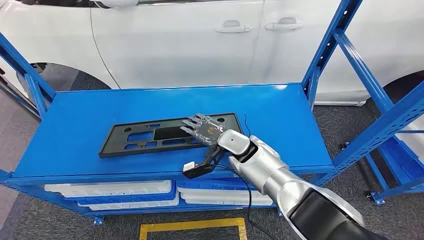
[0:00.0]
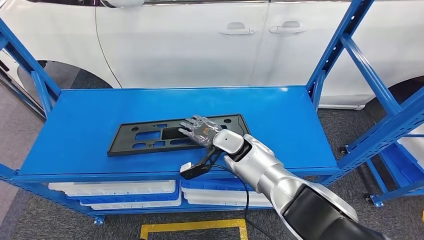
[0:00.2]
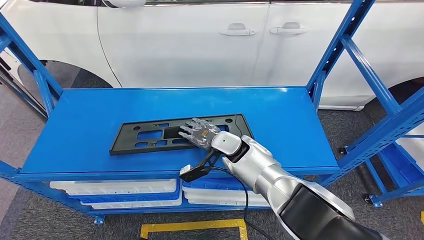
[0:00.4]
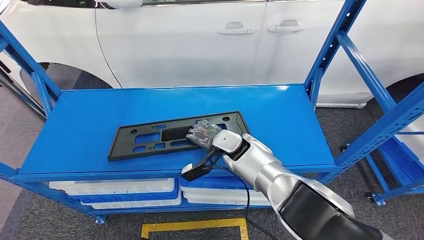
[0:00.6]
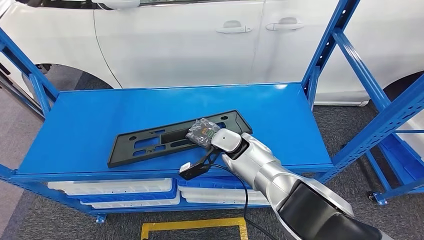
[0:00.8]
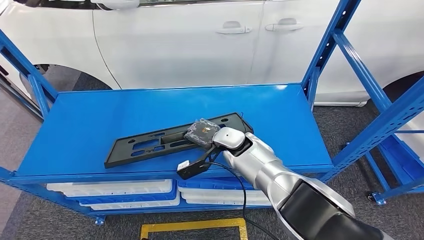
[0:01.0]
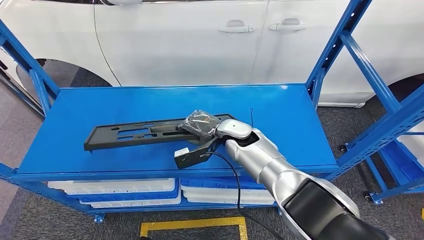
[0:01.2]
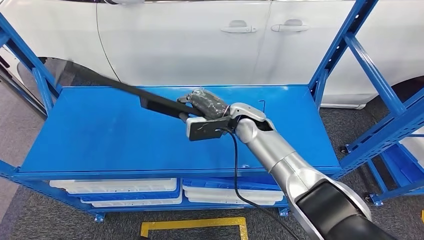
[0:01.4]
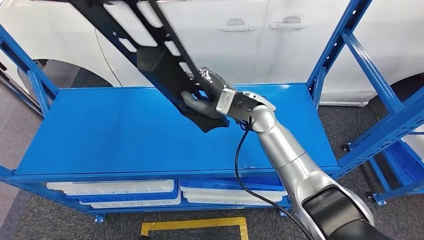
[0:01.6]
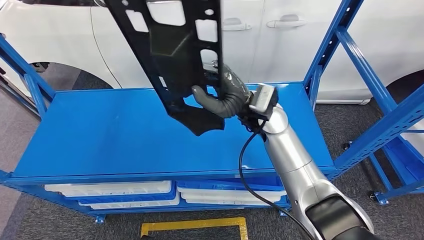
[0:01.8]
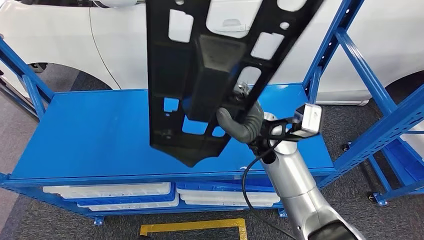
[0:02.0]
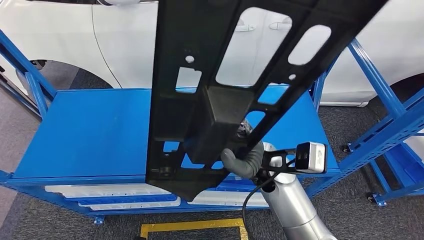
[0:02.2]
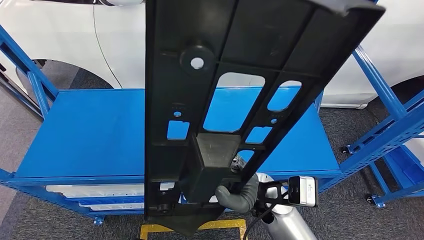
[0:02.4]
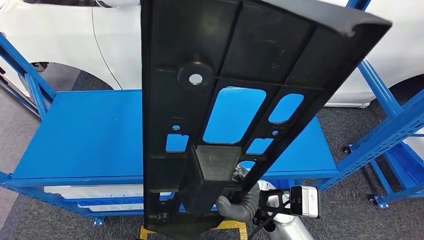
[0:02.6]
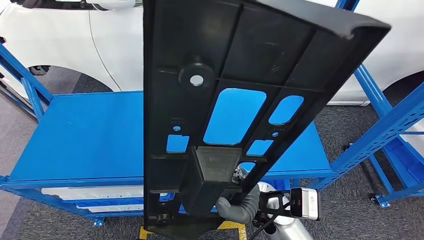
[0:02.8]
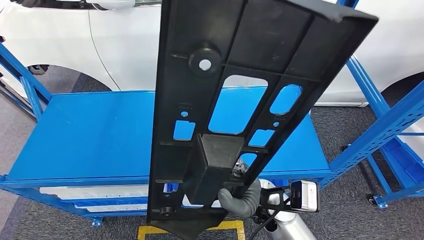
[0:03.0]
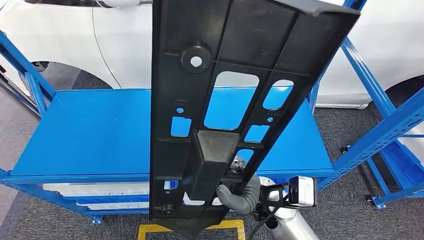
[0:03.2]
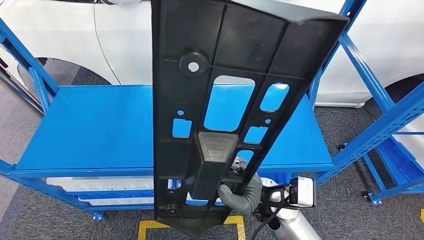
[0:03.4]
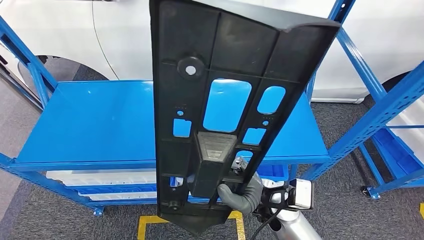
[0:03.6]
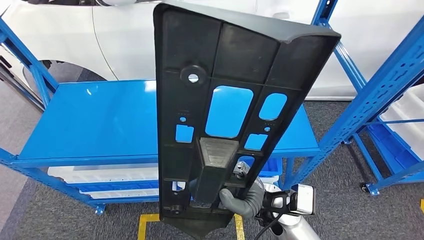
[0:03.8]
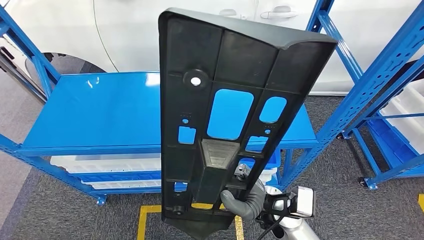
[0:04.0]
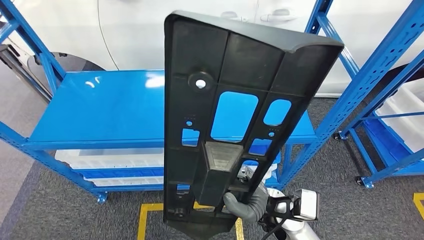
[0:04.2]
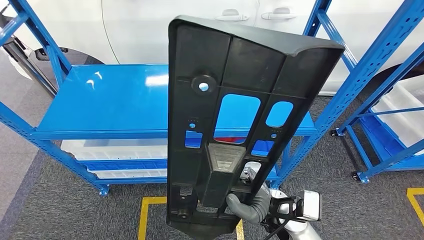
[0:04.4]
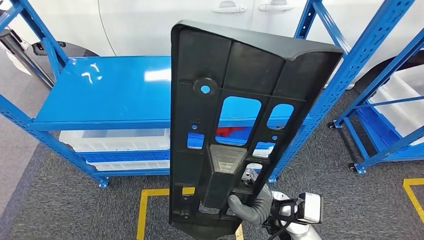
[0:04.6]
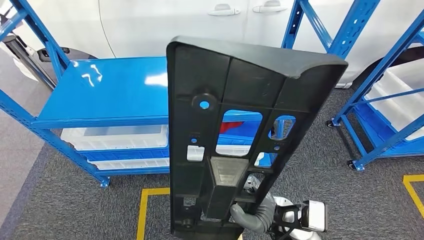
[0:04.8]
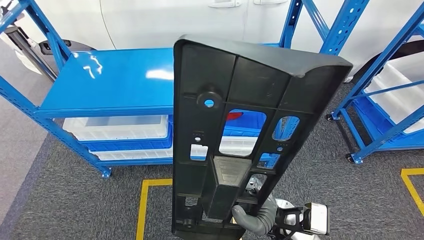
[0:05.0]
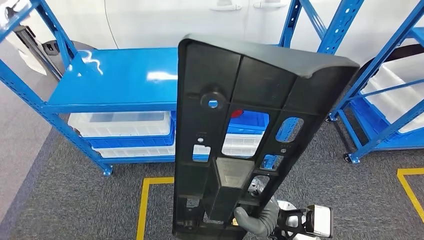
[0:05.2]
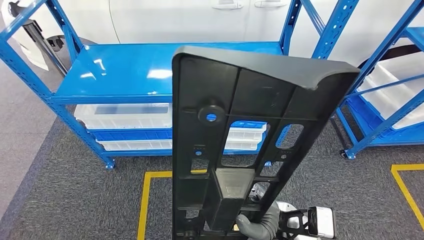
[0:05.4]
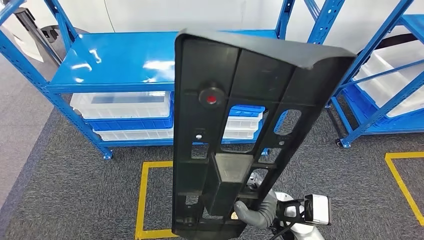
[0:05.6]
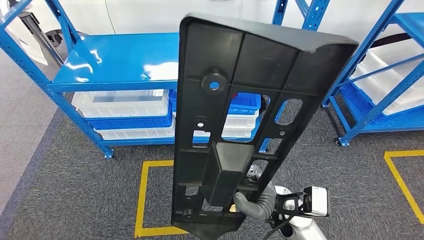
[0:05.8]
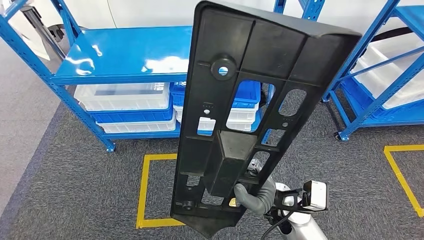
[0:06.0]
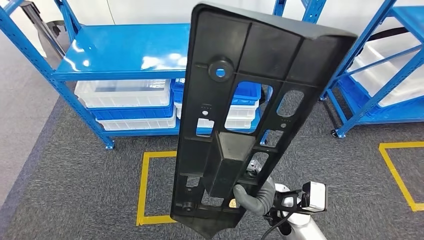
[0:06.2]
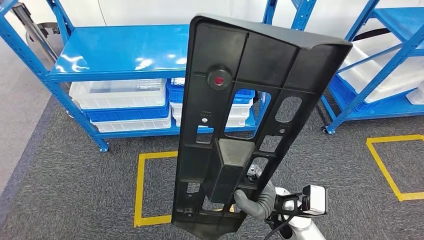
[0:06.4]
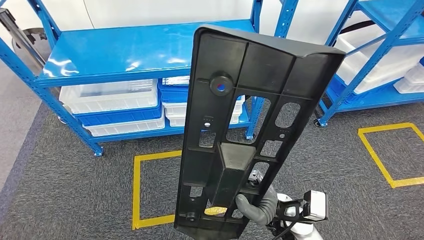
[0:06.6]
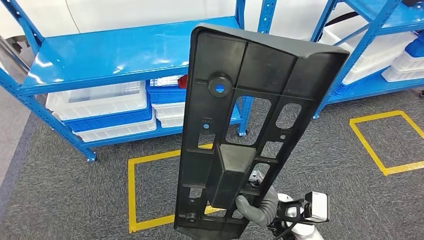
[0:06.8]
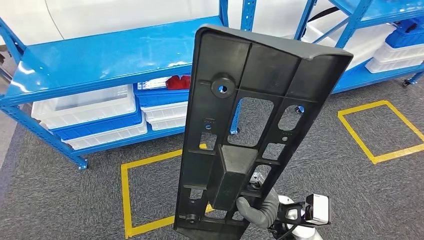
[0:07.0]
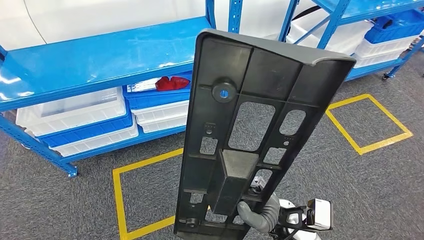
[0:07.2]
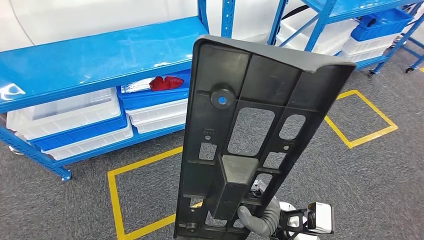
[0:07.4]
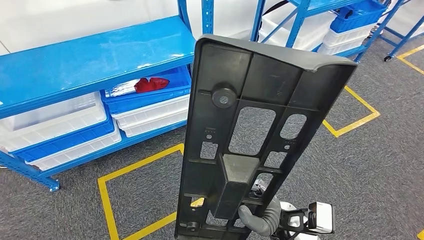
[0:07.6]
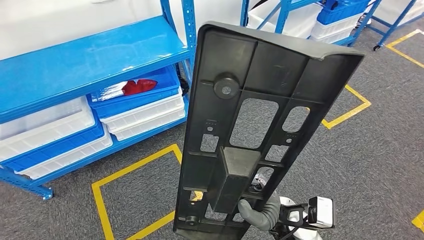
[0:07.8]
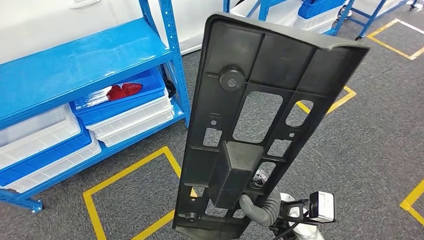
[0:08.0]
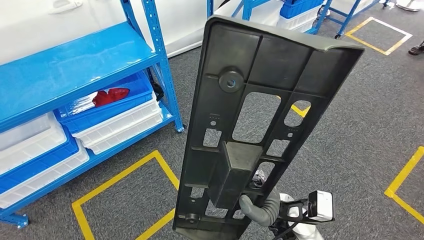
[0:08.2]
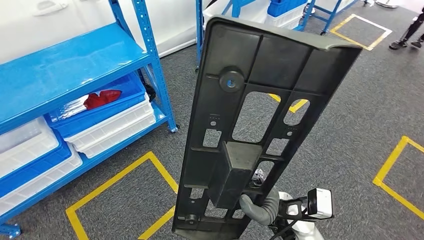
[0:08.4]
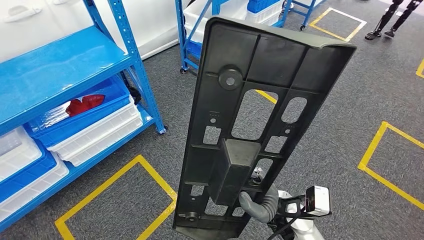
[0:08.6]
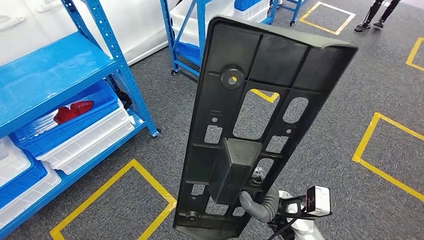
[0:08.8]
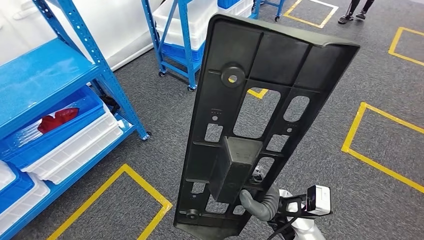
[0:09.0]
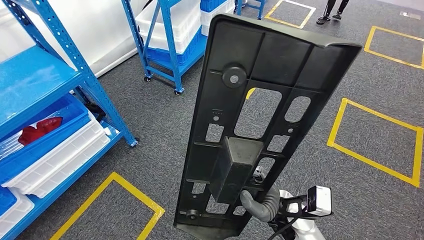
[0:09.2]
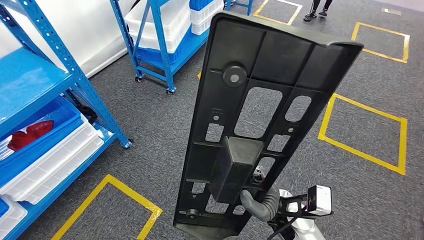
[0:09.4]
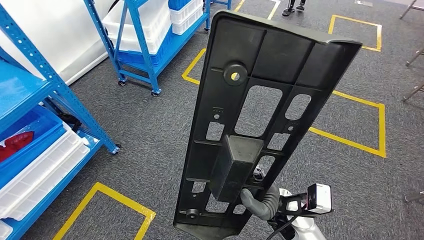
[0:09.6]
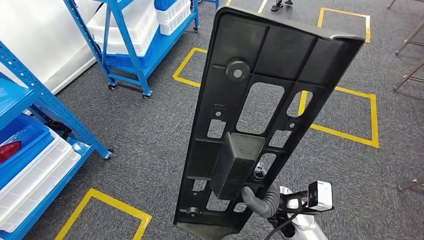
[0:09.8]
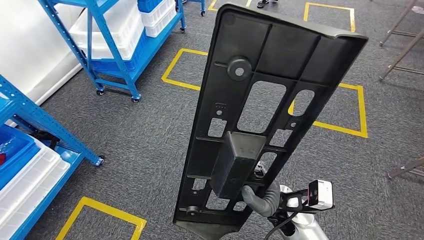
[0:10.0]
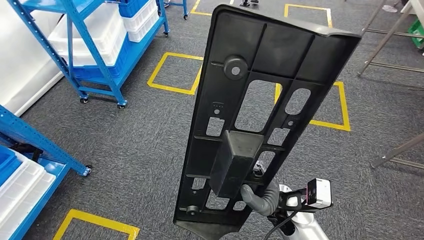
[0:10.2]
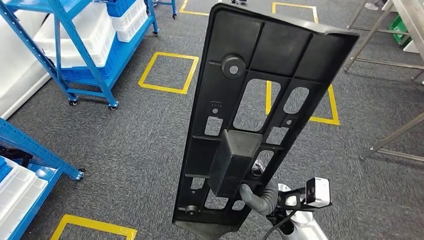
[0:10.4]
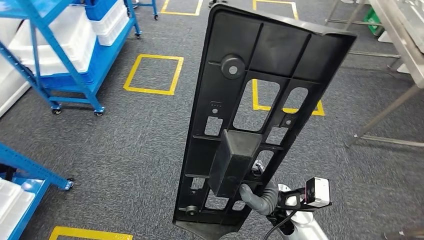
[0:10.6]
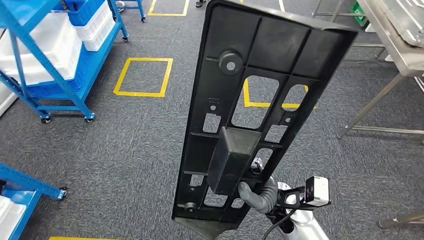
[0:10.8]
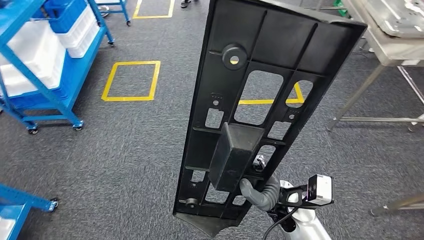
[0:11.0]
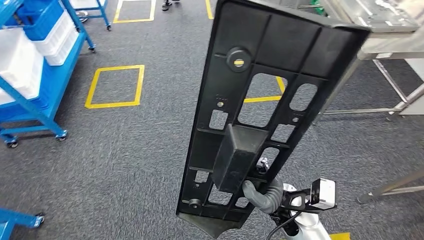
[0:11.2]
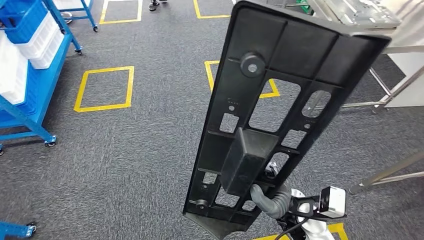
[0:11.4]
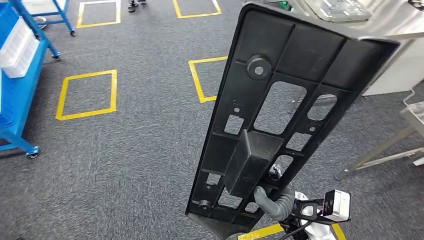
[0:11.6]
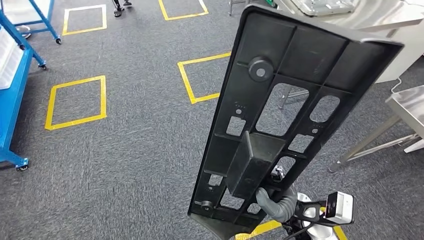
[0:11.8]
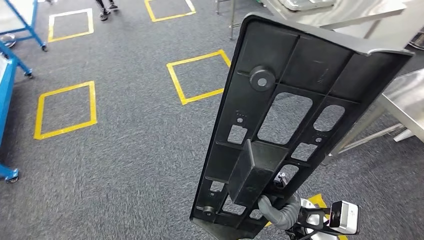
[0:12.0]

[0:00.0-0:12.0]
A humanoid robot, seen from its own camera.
Step, 0:00.0 to 0:03.4: Pick up the large material from the shelf.

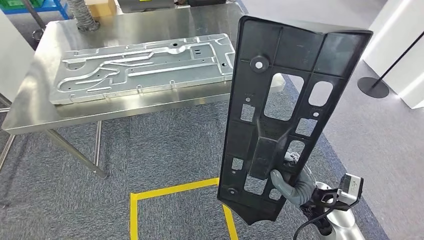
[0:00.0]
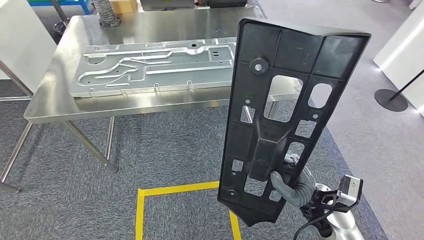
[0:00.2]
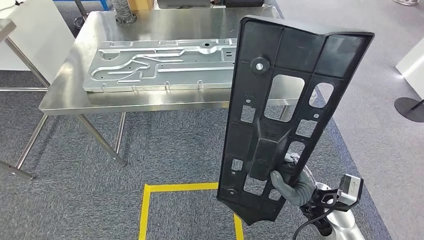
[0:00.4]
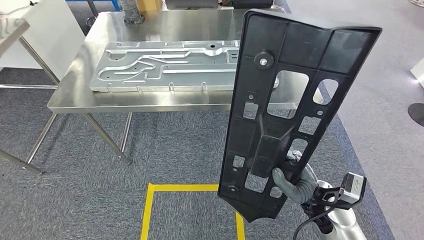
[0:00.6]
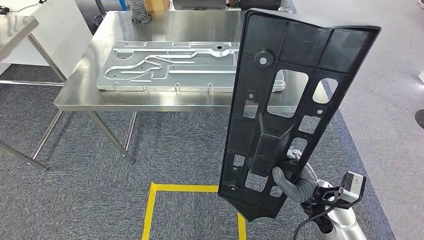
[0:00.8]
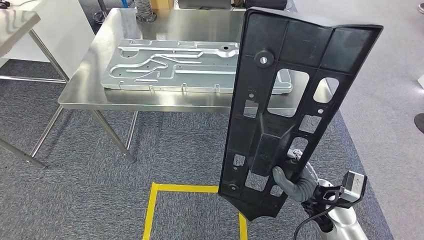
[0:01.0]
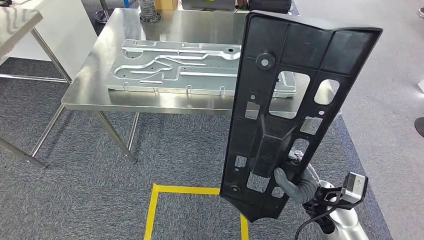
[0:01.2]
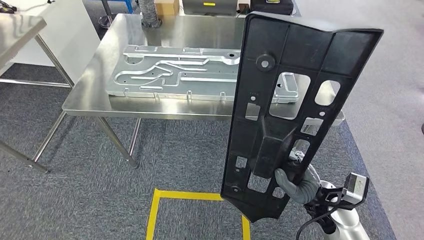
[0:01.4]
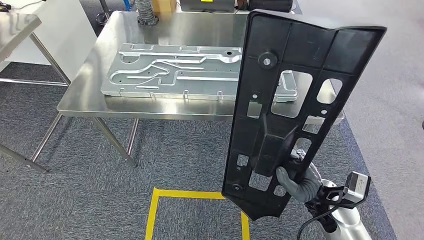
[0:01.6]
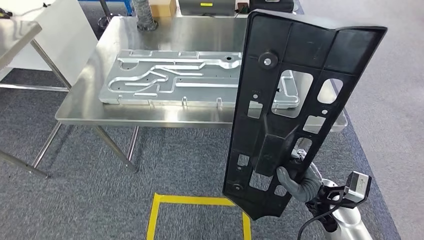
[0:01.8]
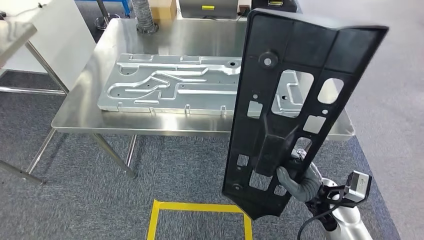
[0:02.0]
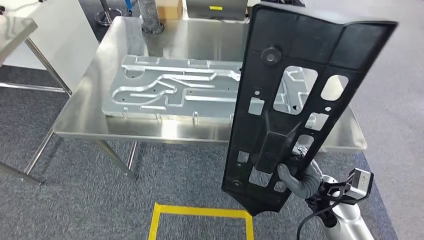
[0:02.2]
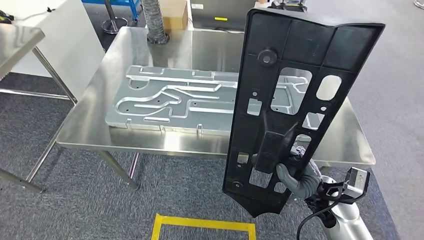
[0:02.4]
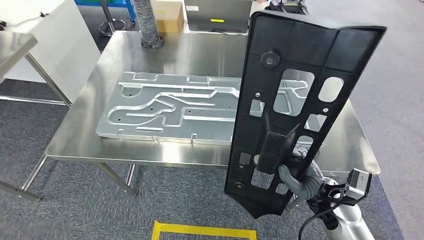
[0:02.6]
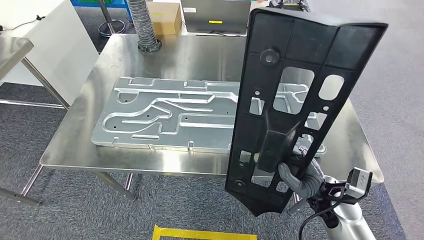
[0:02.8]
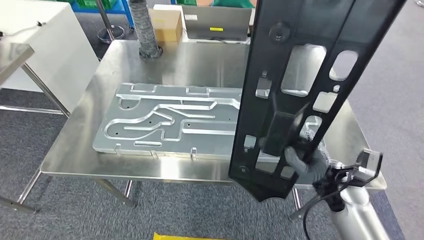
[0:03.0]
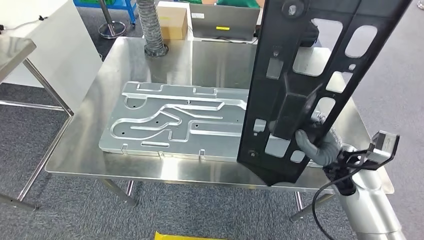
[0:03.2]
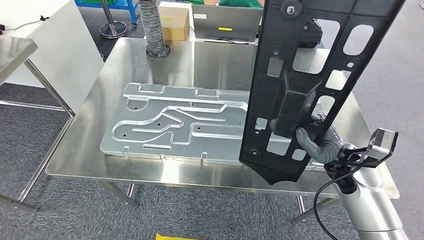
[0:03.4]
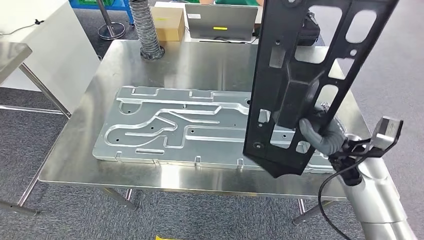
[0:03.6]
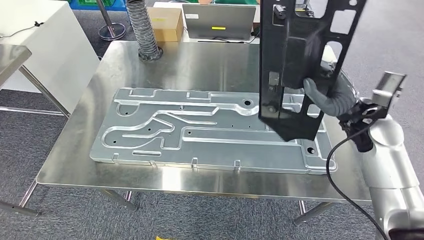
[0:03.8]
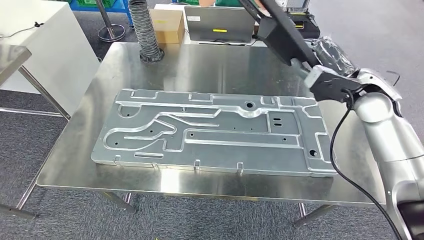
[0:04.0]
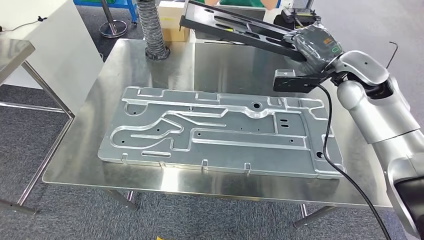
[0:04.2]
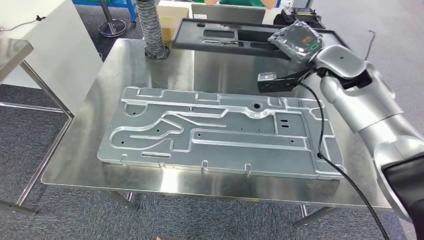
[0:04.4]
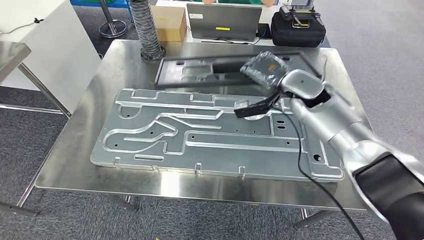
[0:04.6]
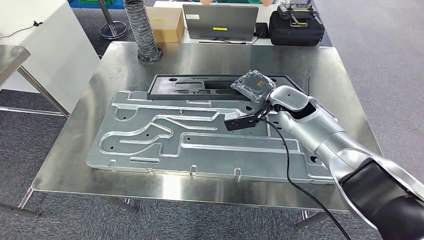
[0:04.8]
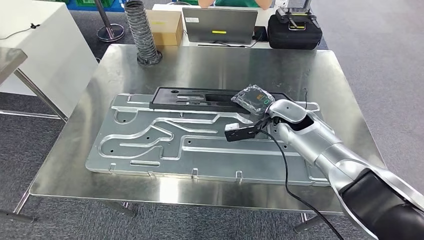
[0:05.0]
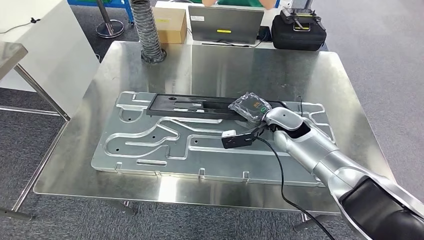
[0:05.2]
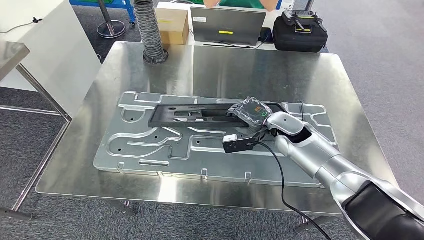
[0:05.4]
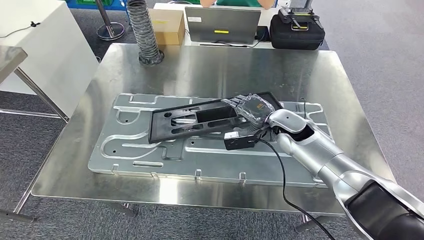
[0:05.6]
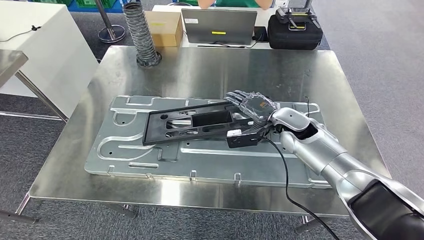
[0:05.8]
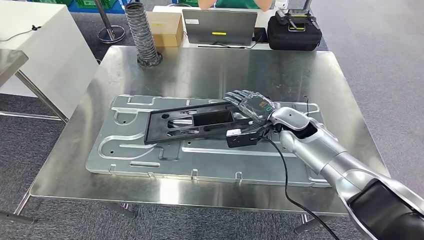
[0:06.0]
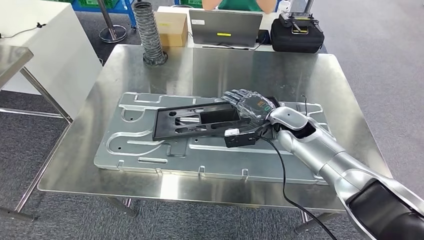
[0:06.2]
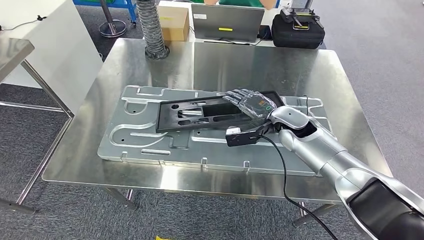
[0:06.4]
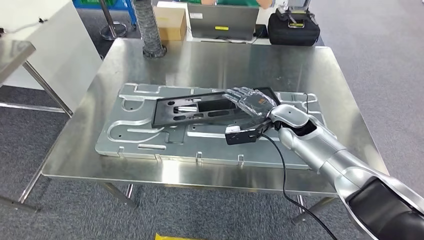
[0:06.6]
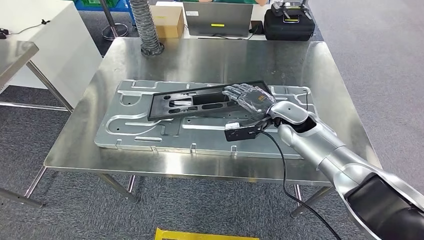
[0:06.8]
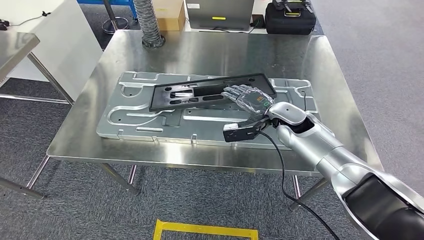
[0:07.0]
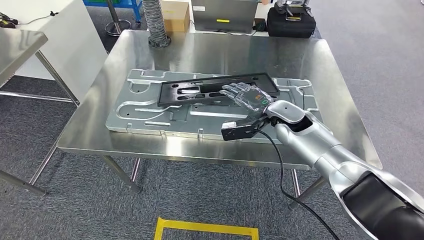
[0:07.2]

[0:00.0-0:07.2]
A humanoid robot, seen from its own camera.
Step, 0:00.0 to 0:02.6: Move the large material to the workbench.
Step, 0:04.2 to 0:06.0: Insert the large material into the corresponding slot on the workbench.
